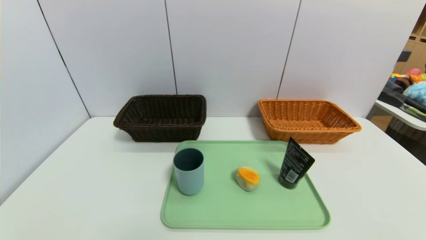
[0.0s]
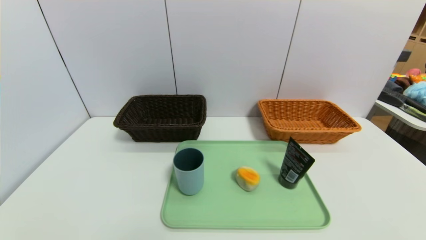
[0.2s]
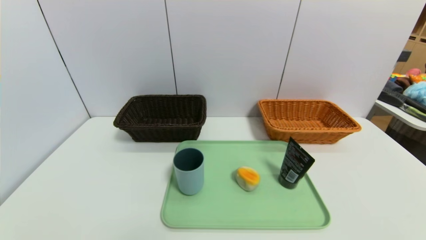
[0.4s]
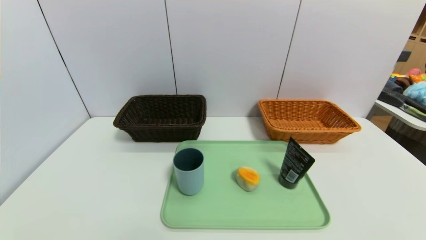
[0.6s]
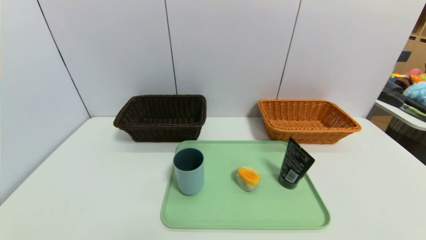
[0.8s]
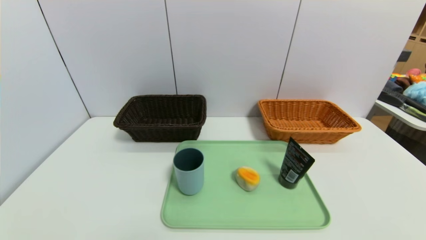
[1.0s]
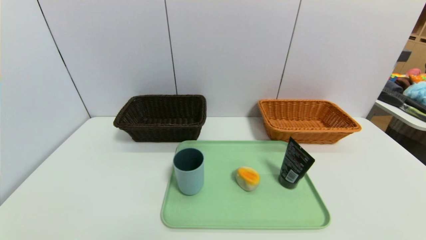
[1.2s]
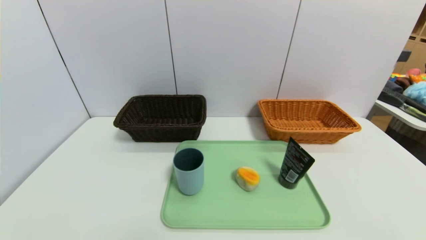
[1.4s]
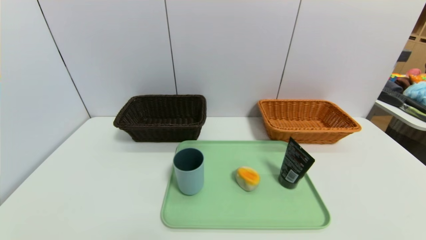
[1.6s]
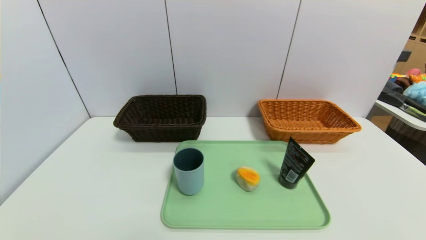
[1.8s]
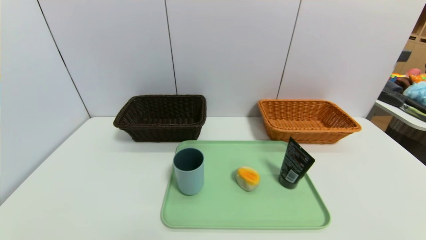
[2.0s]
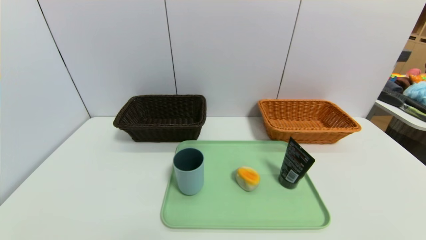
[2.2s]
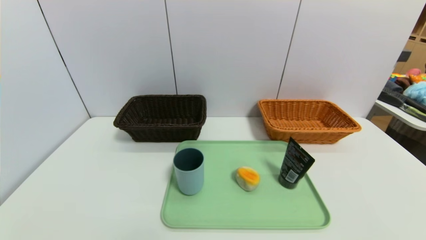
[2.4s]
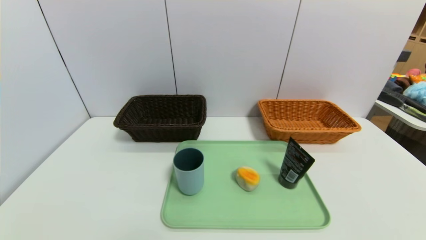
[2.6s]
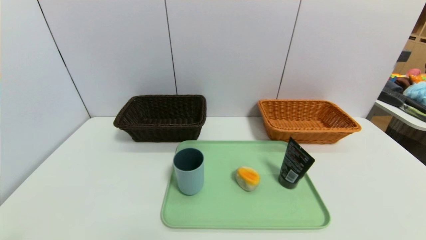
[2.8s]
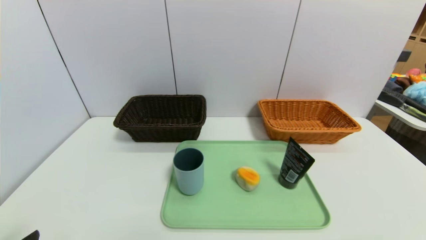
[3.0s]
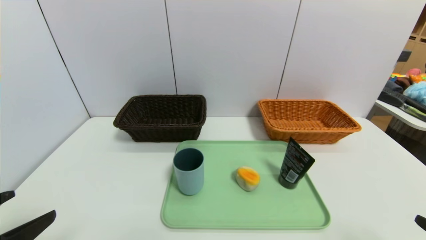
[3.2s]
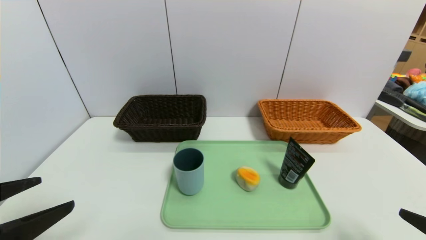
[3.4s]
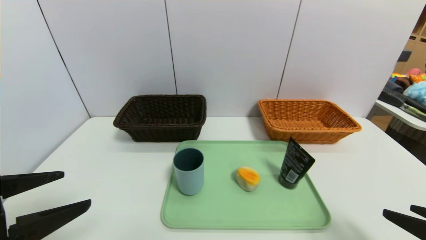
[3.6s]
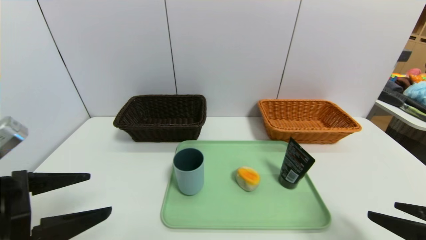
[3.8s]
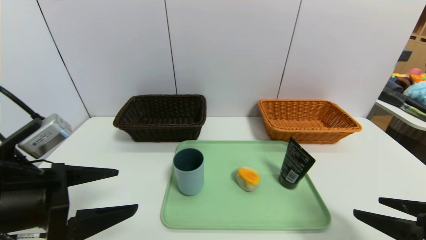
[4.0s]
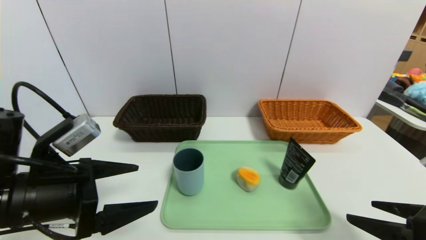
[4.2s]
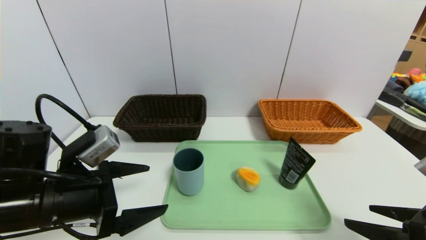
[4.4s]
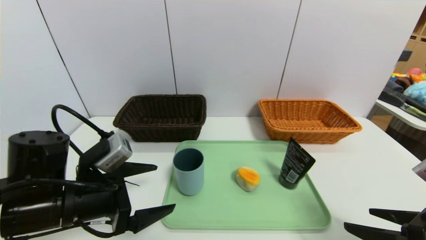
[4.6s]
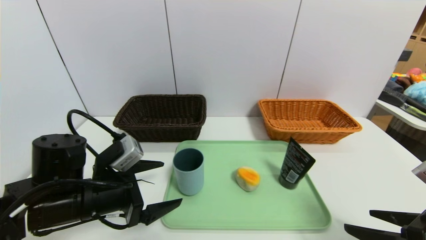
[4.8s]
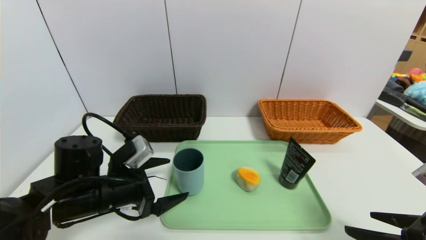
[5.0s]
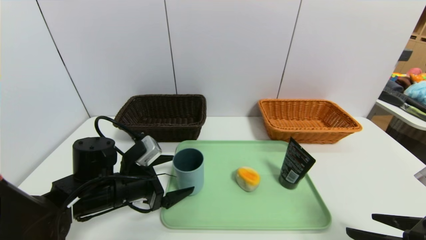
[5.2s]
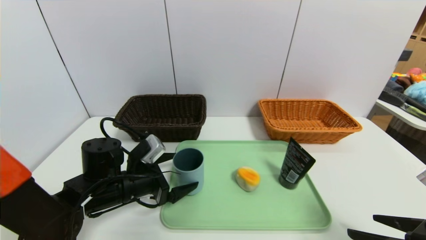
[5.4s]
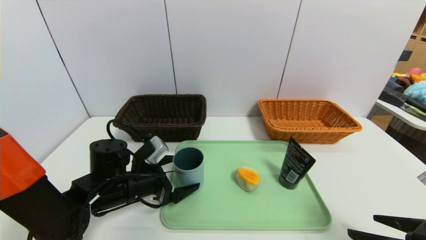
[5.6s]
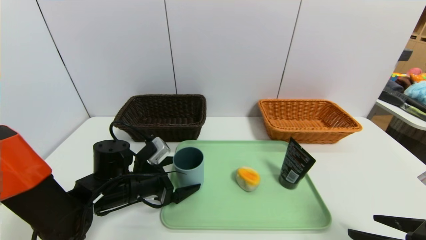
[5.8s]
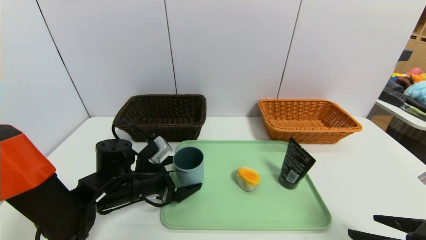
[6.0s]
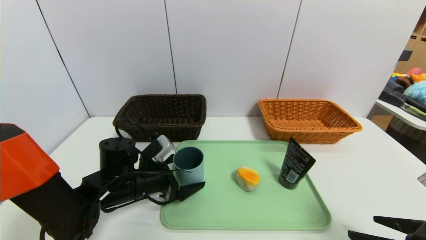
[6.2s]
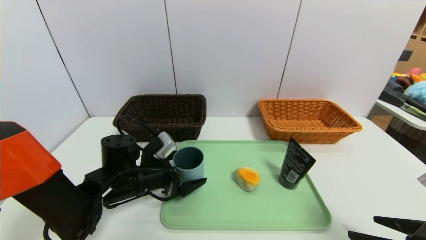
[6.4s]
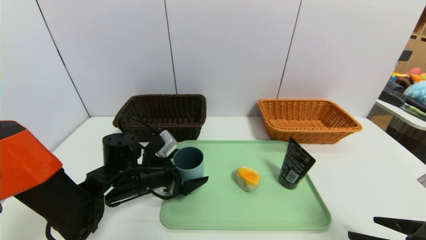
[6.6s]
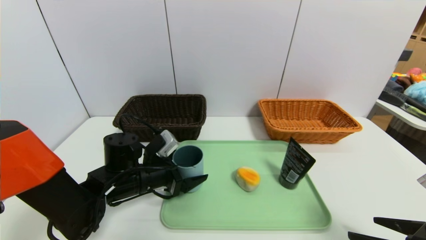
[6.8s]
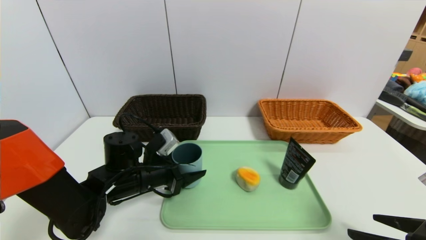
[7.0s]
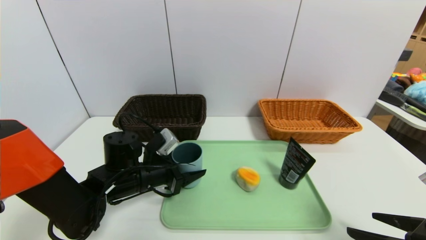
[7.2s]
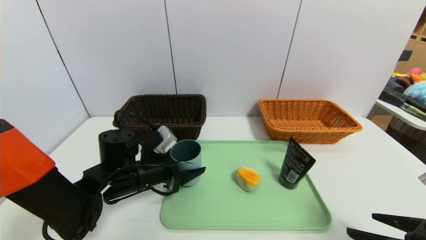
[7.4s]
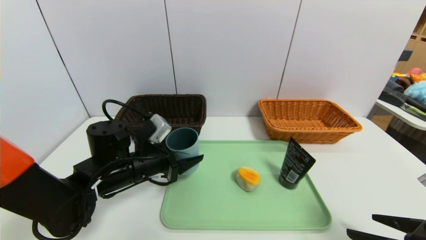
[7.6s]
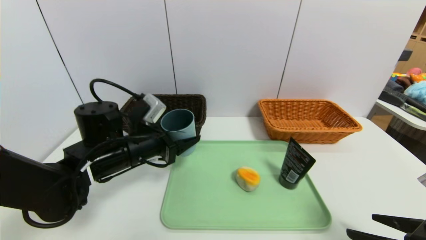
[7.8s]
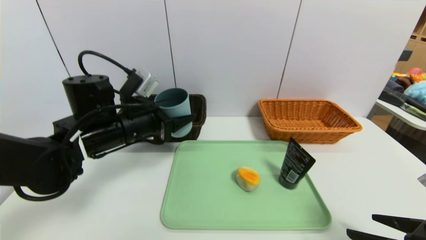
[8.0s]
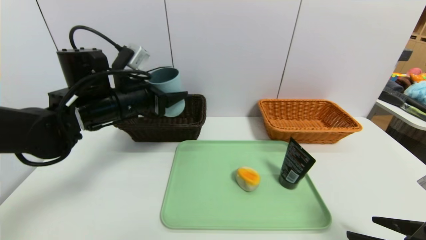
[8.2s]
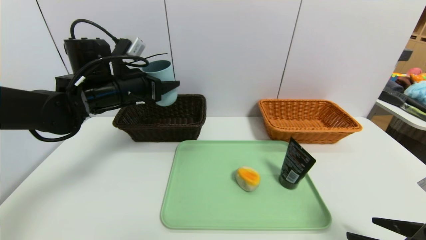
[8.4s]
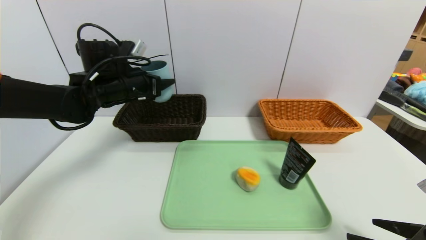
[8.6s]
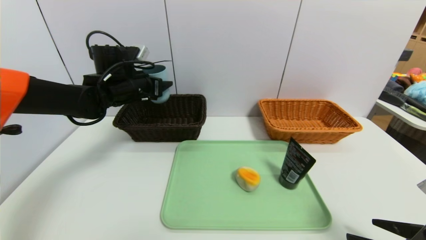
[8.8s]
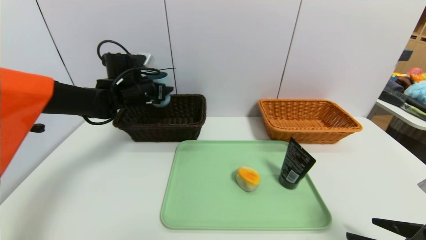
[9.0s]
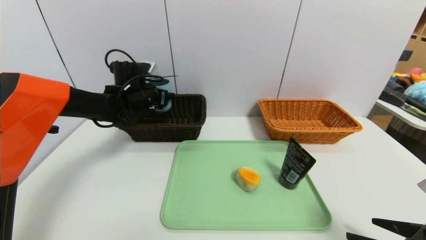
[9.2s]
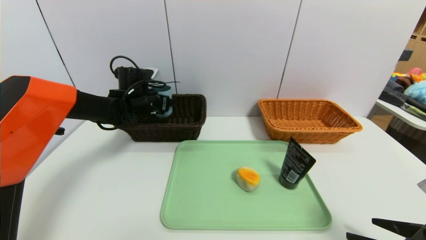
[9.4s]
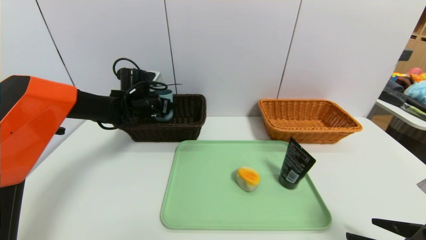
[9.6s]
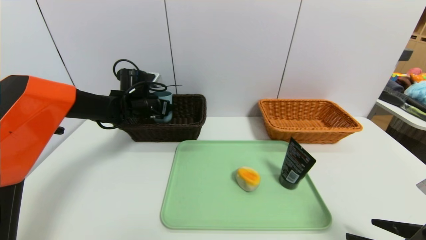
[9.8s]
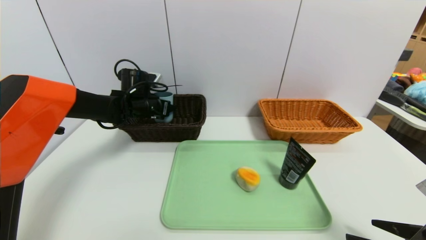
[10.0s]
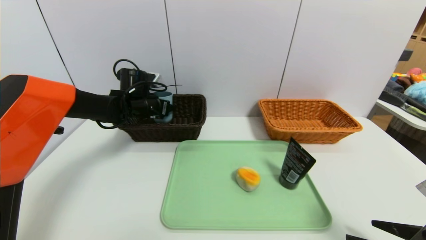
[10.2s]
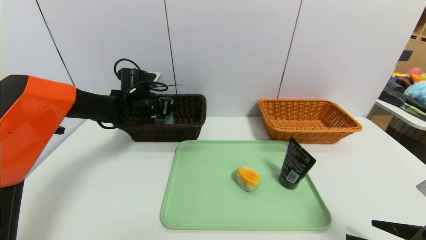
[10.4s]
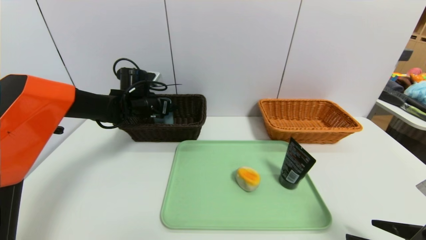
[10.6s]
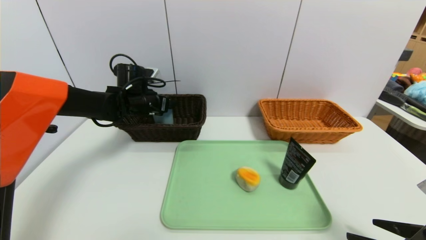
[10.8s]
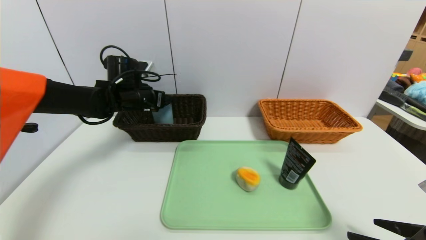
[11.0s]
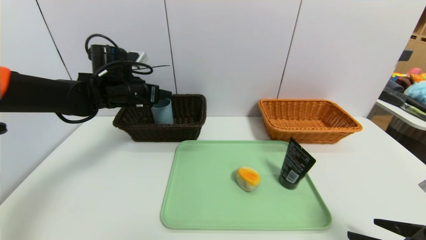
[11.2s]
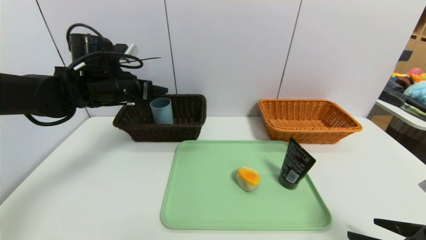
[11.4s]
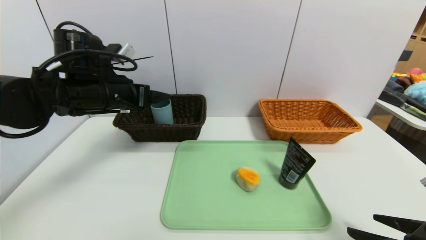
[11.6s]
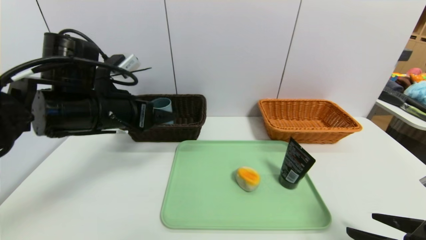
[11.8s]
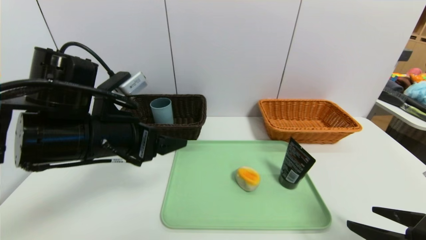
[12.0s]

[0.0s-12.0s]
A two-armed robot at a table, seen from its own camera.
Task of the whole recording: place the food in the right basket with the right gripper, and place the non food items in the left basket with the left gripper.
Step, 0.0s to 10.6s: Grasp the blue cup and put it in the left basket.
0.0s to 1.6s: Both grippers stay put.
3.0s to 4.4s: The left gripper is displaced forward and to the right by some 15 cm; the right gripper travels forward by about 10 cm.
4.4s to 6.0s: The left gripper shifts some 15 cm forward and downward.
6.0s to 7.6s: The left gripper moves upward, some 5 cm, and closes its fingers.
7.6s to 9.0s: The left gripper shifts approximately 20 cm forward and upward.
9.0s to 10.4s: The left gripper opens.
10.4s to 12.0s: The left gripper shifts about 25 cm backward, and opens.

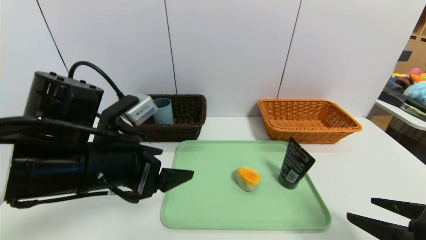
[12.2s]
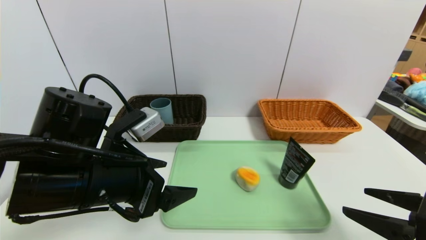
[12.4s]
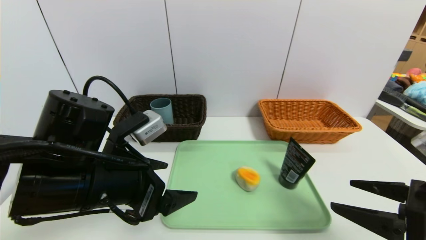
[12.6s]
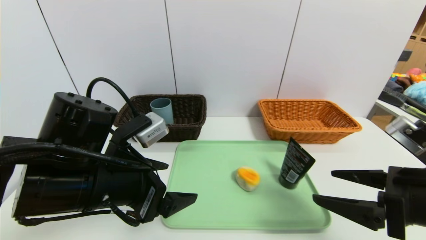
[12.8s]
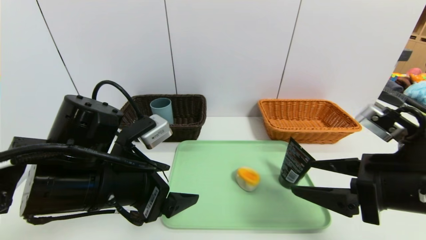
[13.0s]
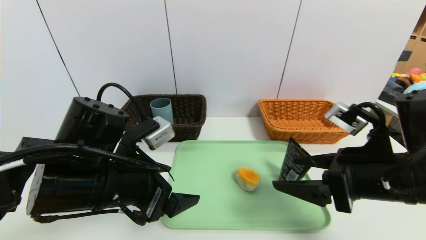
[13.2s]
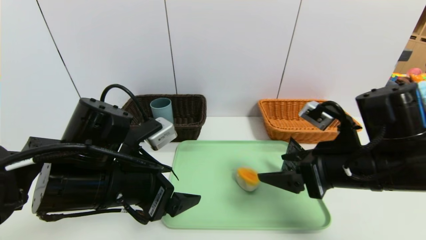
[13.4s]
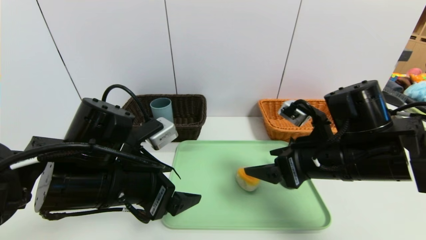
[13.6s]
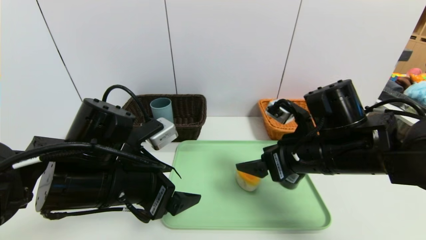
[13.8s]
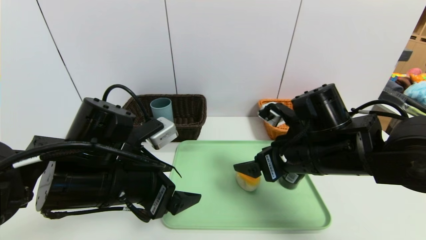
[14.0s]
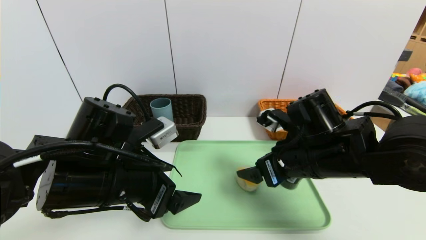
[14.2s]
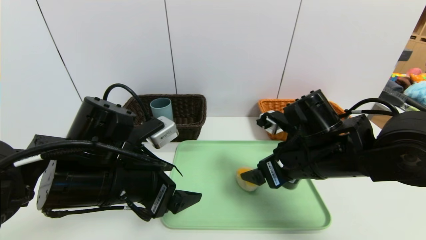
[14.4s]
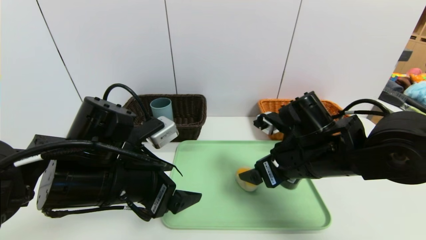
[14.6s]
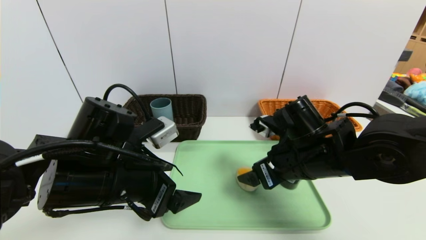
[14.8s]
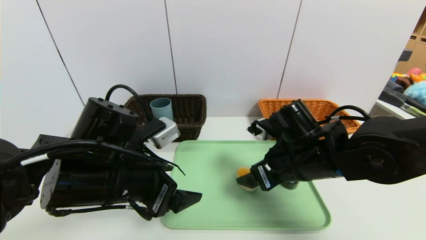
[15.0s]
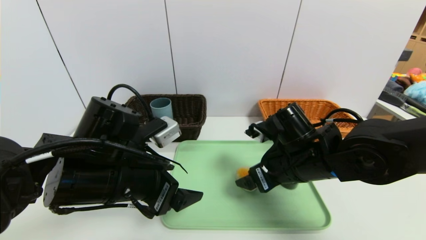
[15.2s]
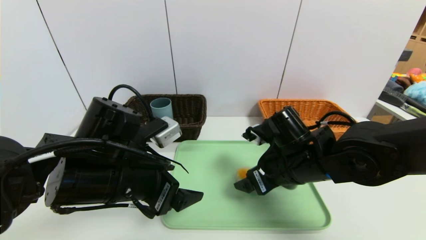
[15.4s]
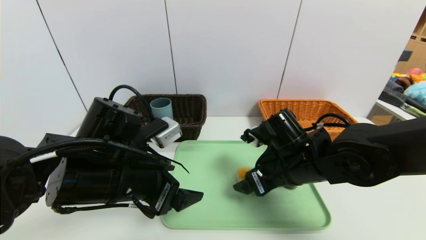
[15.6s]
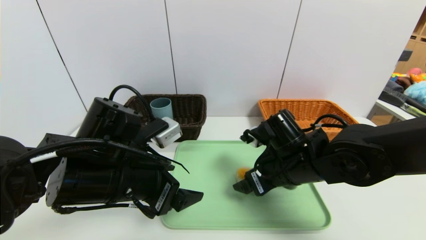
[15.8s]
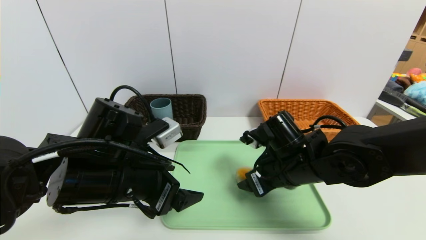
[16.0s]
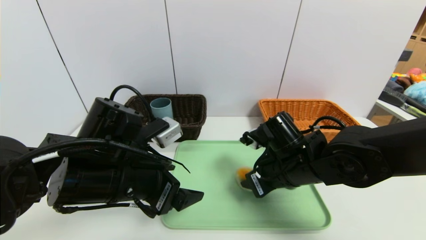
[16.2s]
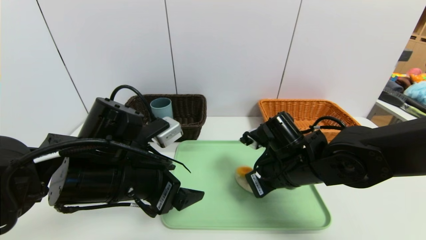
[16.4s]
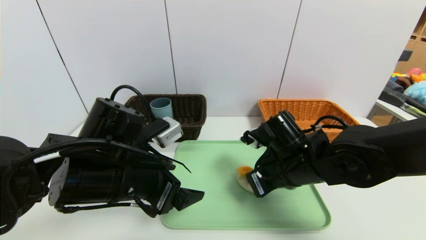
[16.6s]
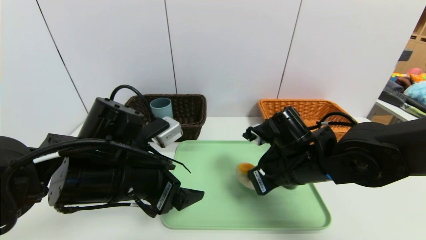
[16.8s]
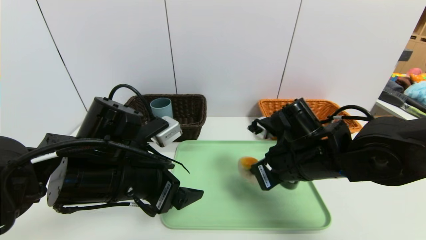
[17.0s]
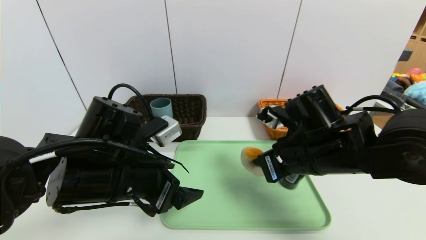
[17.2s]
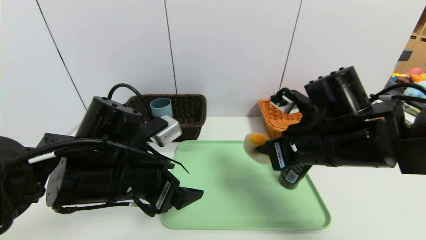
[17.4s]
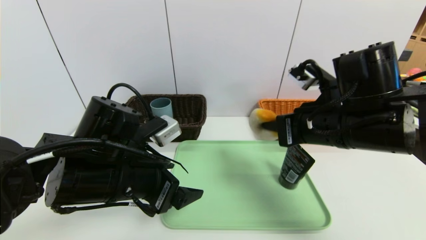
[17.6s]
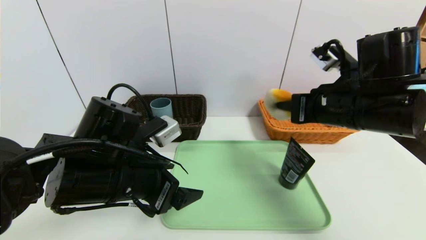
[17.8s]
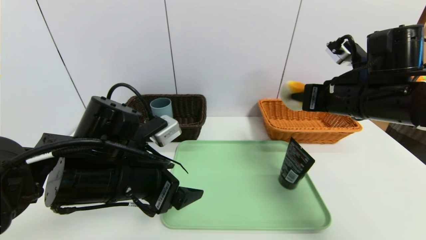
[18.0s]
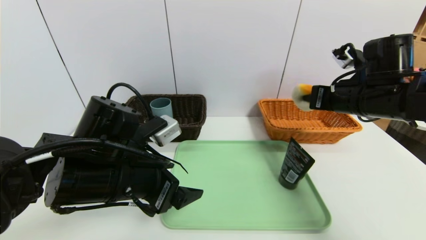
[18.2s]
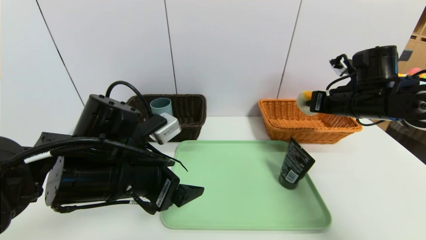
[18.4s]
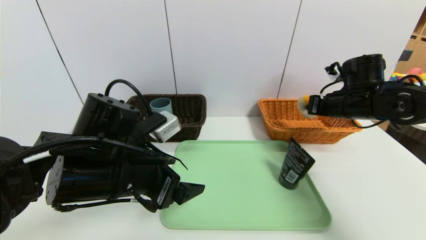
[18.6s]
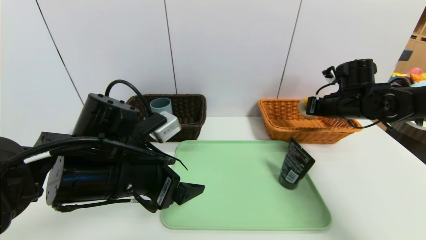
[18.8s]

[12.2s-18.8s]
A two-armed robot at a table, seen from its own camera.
Task of the whole recording: place the food in the right basket with the right gripper, and place the non food items in the left basket with the left gripper.
12.2s to 13.8s: The right gripper goes roughly 20 cm to the left and forward.
13.8s to 15.4s: The right gripper ends up some 5 cm from where it was.
15.4s to 17.2s: The right gripper moves approximately 5 cm, and closes.
17.2s to 18.8s: The right gripper moves forward and to the right, about 20 cm.
